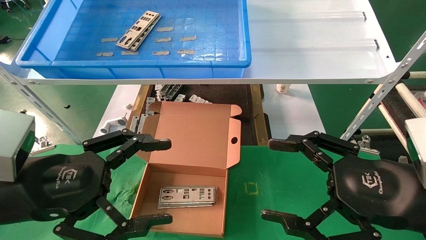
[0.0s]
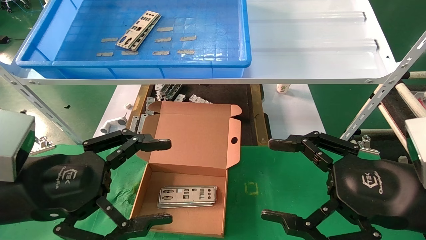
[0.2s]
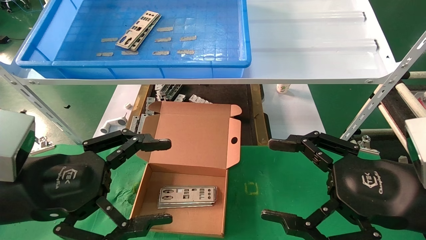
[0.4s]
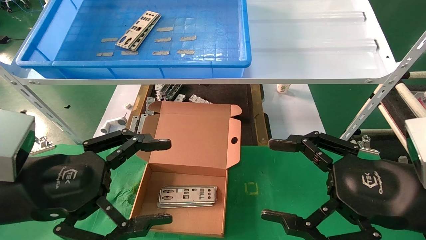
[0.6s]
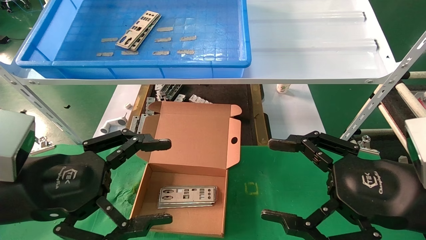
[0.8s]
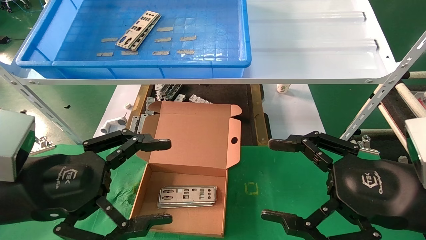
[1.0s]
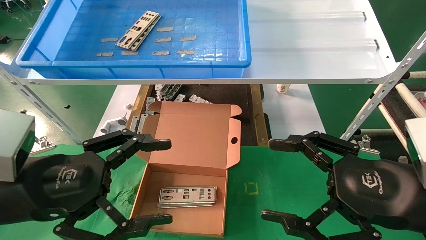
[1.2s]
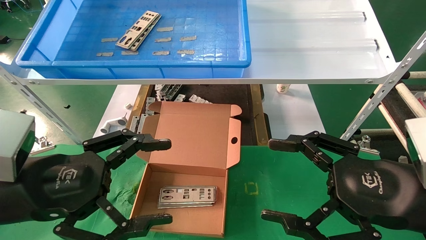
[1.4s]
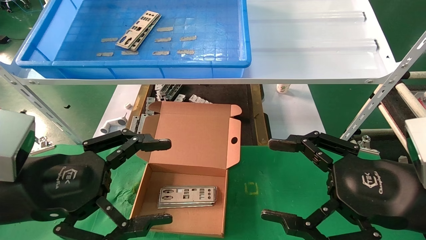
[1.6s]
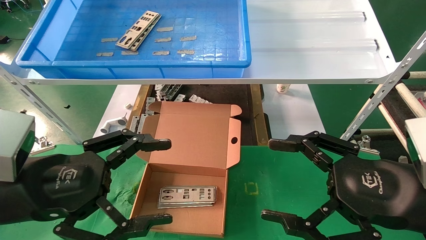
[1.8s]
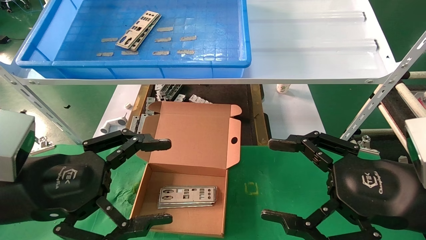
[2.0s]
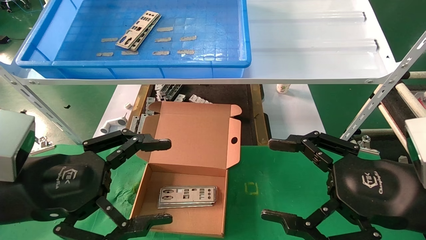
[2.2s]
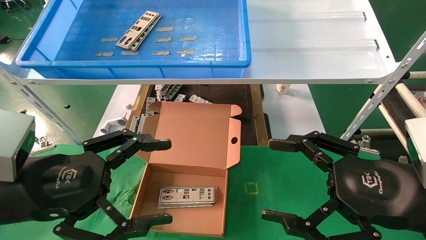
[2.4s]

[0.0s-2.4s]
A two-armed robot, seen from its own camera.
Task of the whole recording: pick up the parts on the tray and put them in the cardboard box.
0.0s to 2.4s: The two grippers keep their place.

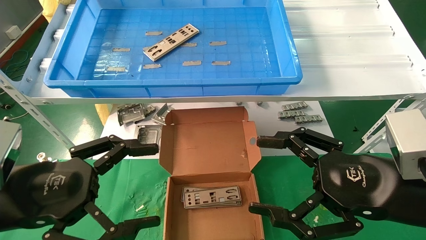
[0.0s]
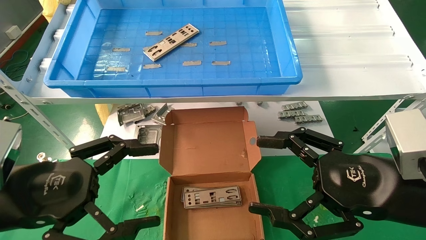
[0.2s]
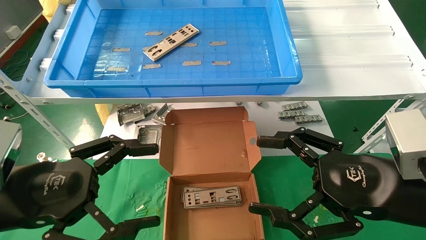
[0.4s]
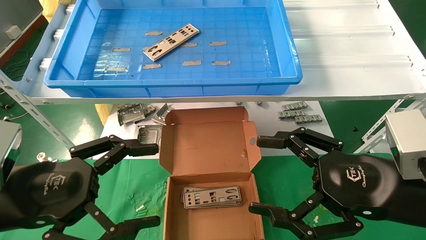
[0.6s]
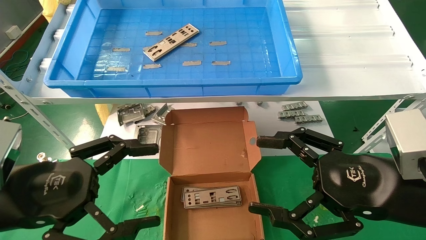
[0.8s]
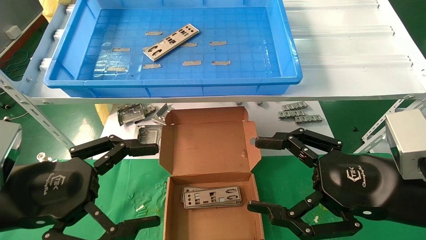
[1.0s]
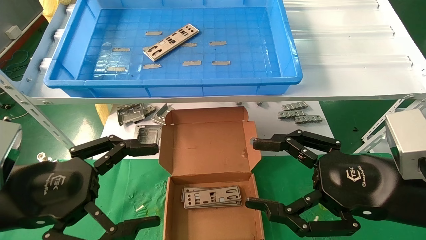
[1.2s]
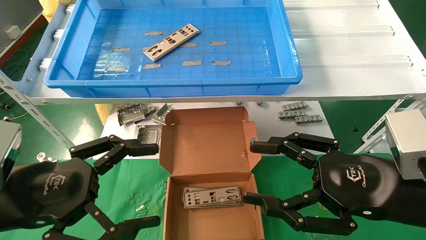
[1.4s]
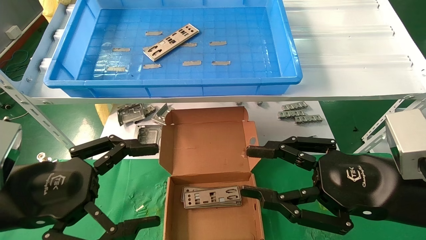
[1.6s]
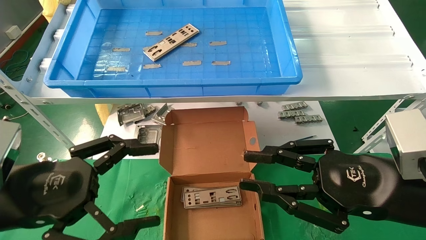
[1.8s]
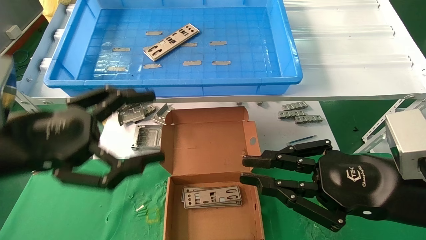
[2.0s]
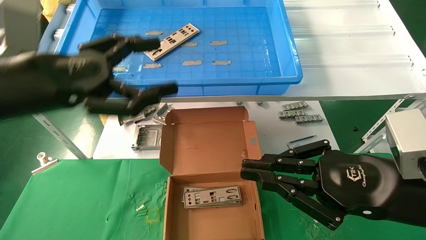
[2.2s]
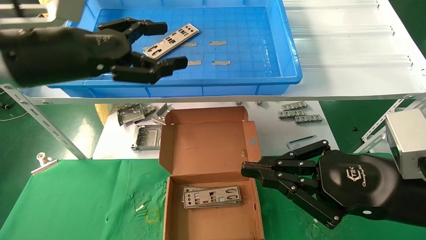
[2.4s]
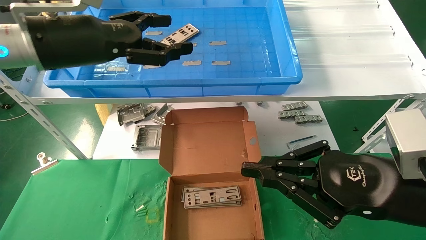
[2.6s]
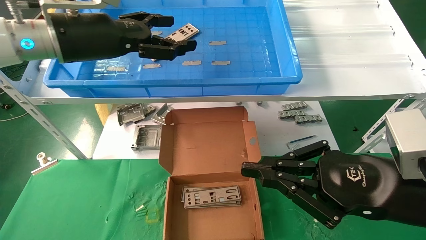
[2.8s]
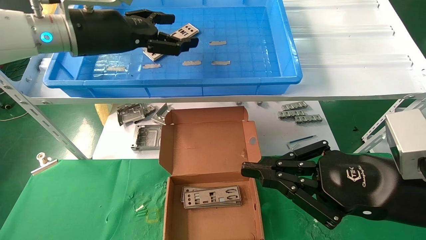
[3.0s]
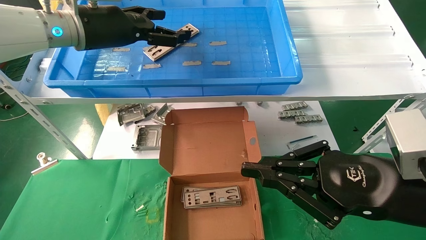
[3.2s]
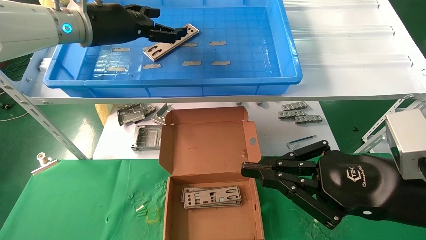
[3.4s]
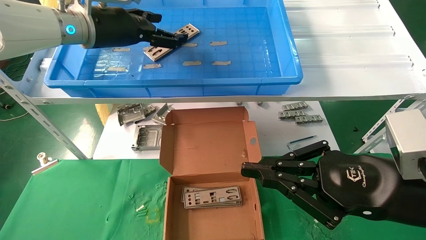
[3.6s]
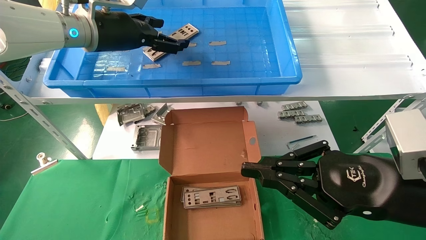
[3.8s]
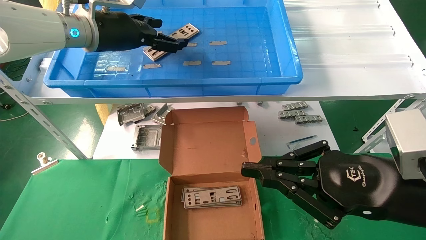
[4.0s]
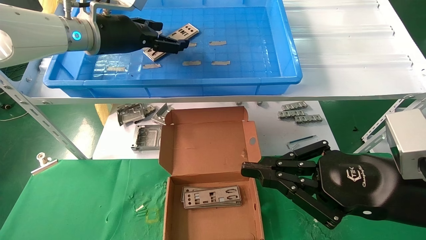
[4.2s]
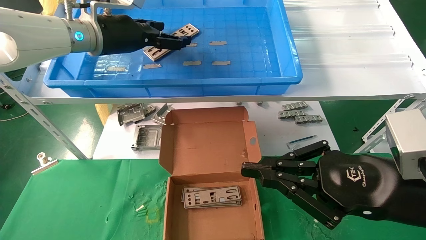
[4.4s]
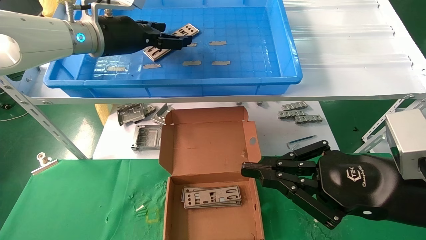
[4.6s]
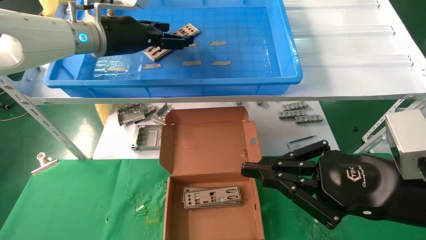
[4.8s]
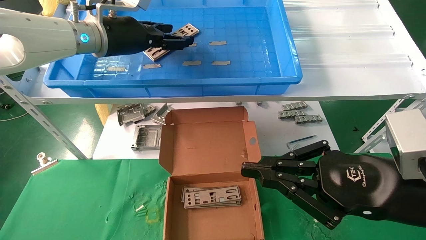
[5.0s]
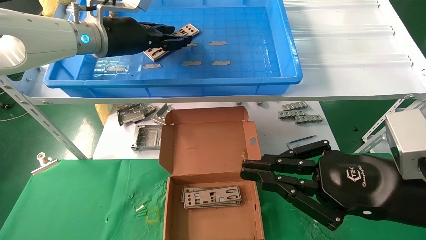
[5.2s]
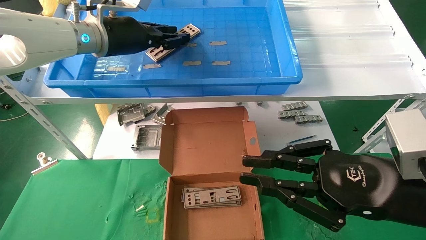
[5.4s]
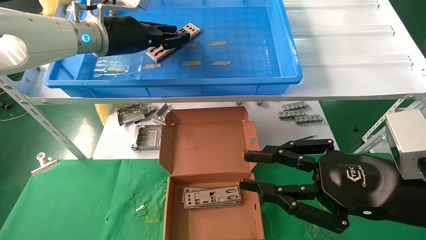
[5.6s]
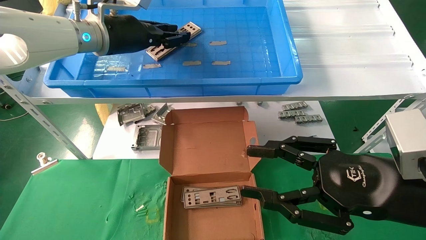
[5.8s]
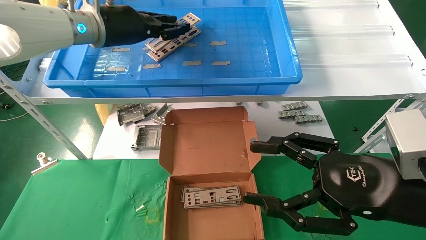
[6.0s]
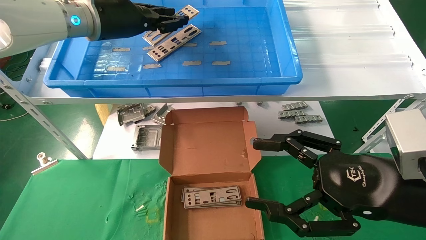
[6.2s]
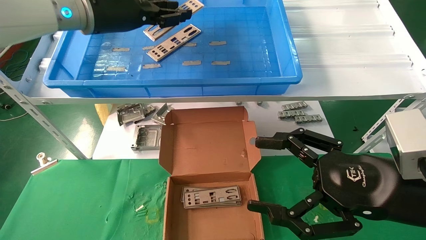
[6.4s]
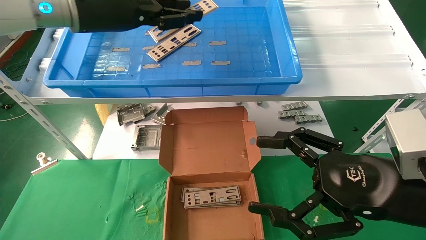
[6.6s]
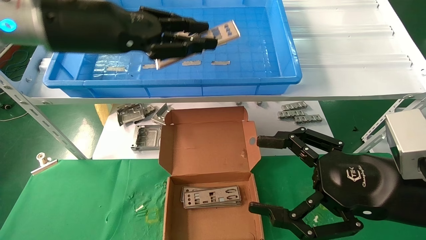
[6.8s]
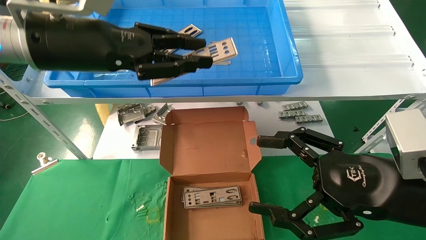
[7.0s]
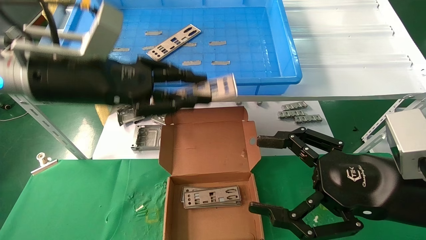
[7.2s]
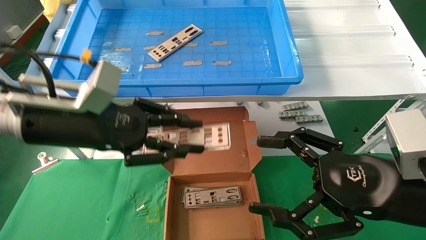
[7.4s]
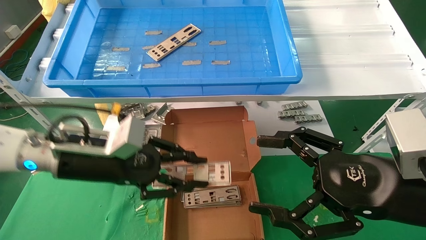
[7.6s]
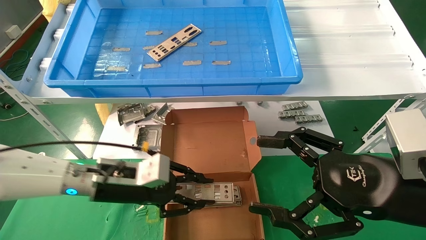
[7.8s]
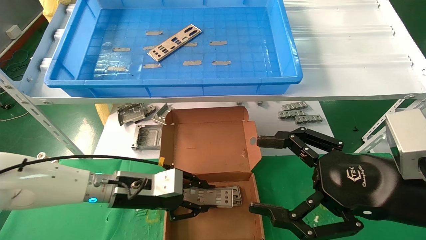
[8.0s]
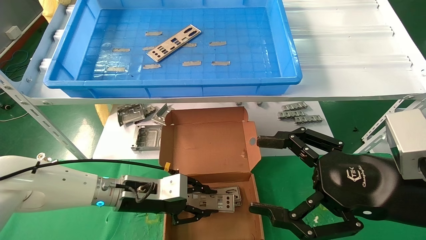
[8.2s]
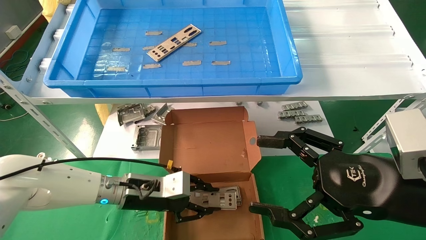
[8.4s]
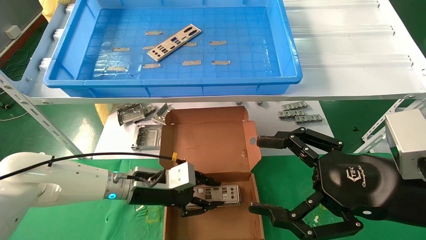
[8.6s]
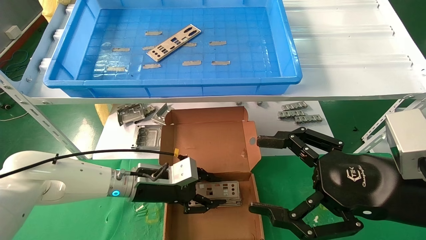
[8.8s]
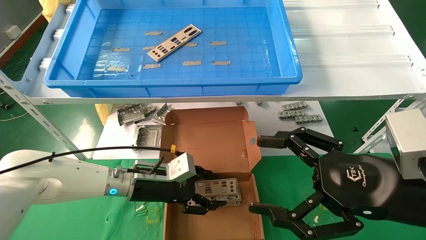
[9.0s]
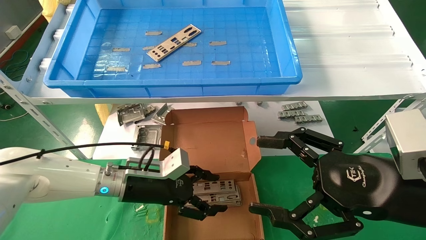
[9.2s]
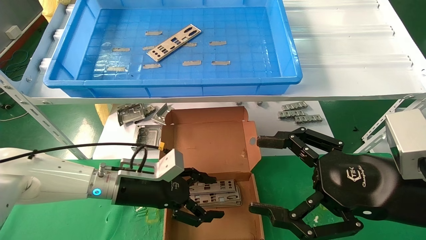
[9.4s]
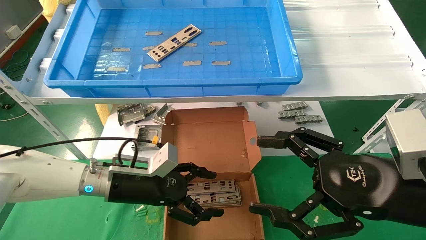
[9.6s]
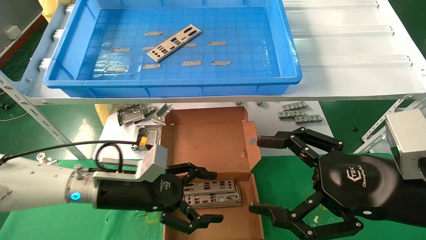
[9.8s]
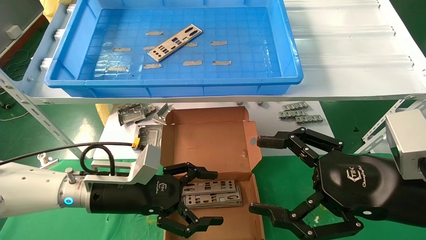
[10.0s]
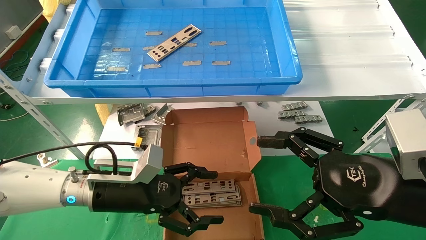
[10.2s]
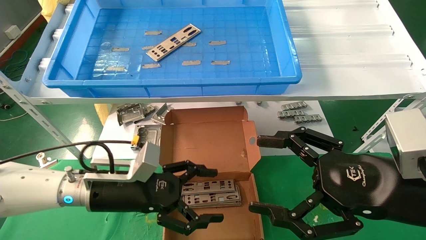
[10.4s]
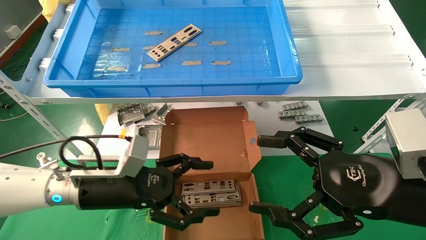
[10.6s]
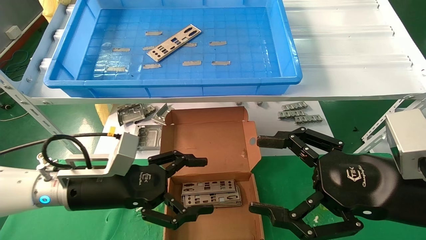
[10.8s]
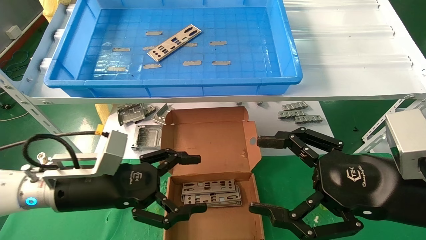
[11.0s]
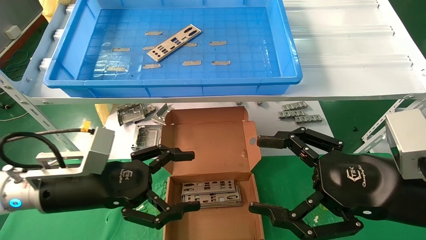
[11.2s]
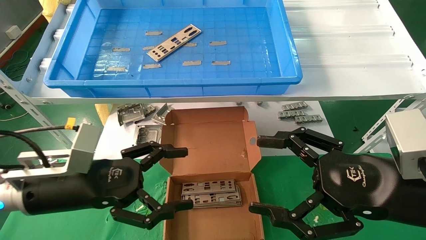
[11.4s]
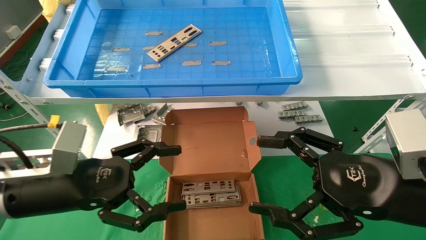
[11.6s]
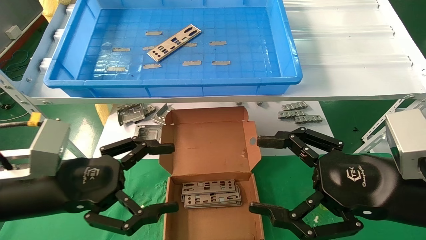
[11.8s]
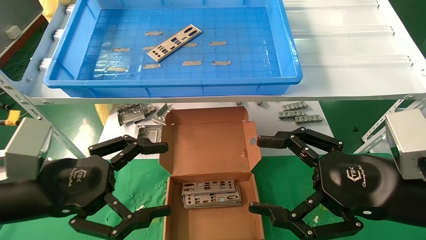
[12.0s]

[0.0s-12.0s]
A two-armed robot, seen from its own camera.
Task of the whole recording: pick up the parts on the tray and put them in the cardboard box.
Step, 2.2s to 5.6s: Pick up the IO bracket from the container box.
Step, 5.8s to 9.0s: Place the IO bracket into the ingredient slot.
0.0s to 1.6s: The right gripper closes.
1.6s to 3.0s: The left gripper is displaced forward and upward by about 25 cm. Meanwhile the right gripper closes up.
3.0s to 4.4s: The grippers make only small movements.
4.4s to 6.0s: The left gripper closes its fingers. Meanwhile the right gripper opens.
6.0s to 7.6s: The right gripper opens; the left gripper is displaced downward and backward by about 25 cm.
7.6s to 9.0s: The left gripper travels downward, forward and to the right by about 15 cm.
9.0s to 10.4s: The left gripper shifts some 5 cm backward, and opens its fingers.
10.4s to 12.0s: The left gripper shifts some 15 cm backward, to the left and upward.

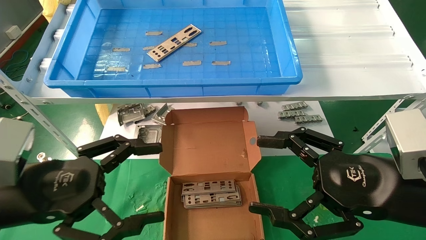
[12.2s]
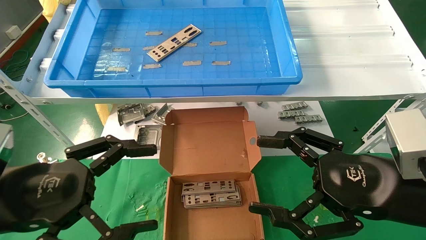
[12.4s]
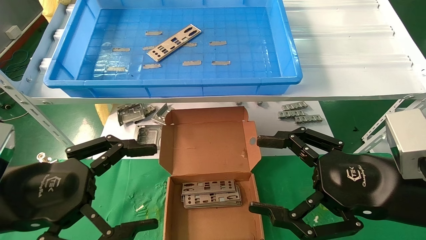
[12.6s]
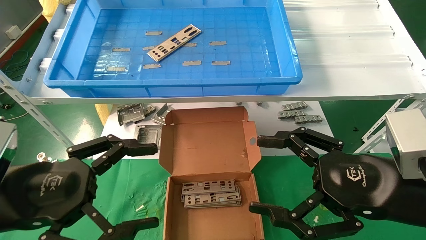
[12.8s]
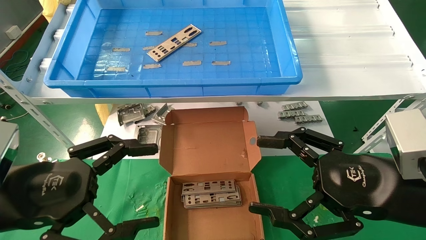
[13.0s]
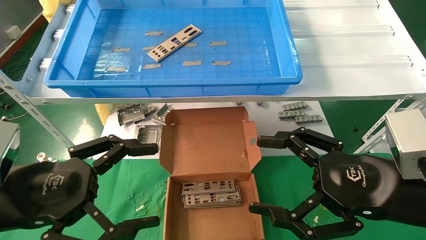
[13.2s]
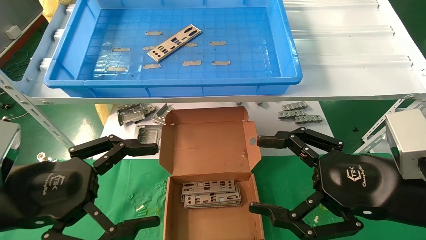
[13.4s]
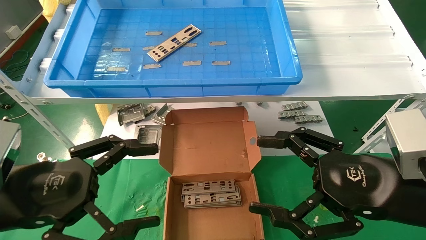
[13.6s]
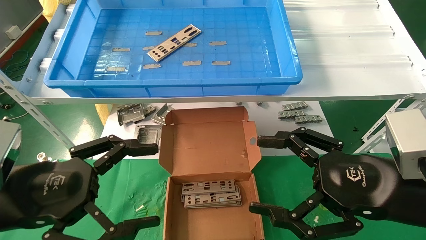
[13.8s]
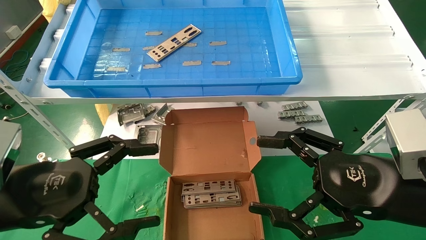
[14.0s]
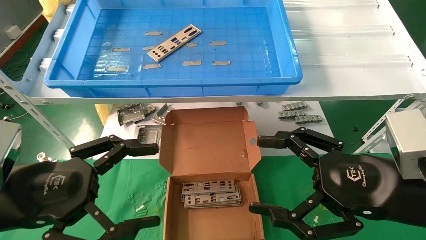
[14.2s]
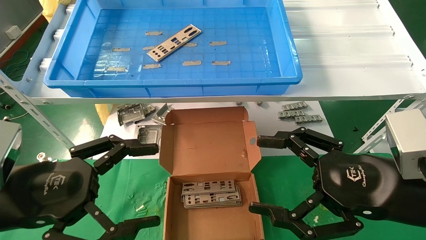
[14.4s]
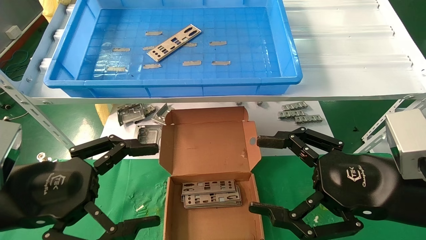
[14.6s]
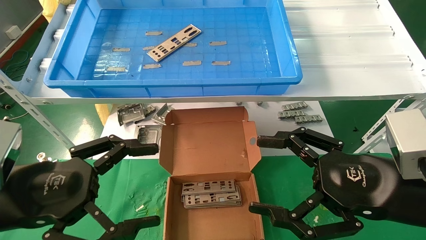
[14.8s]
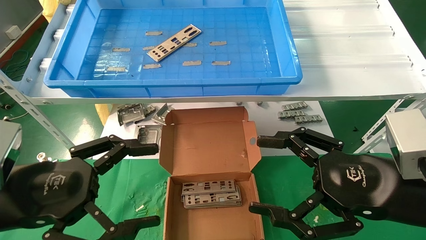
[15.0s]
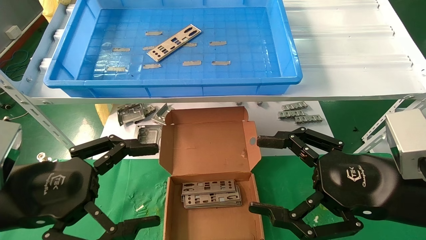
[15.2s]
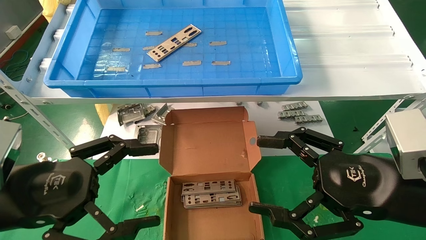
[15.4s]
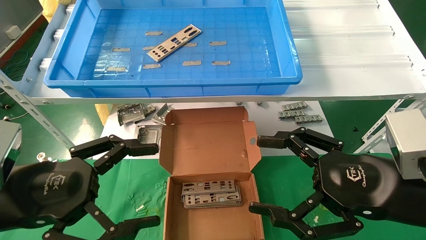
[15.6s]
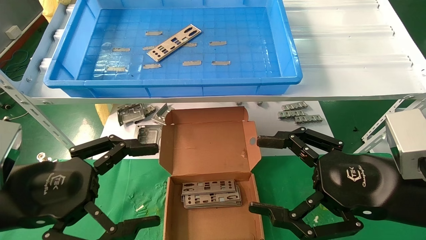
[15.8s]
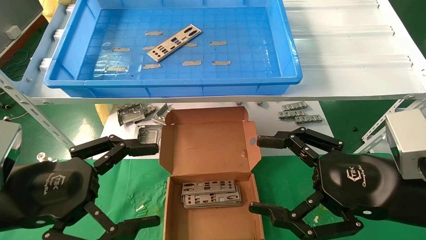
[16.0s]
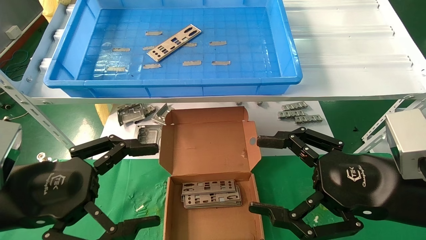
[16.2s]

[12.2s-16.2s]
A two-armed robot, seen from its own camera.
Task of the whole recording: pick up the parts on the tray and put them in the cardboard box.
12.2s to 13.6s: The grippers stay close to where they were, moving slightly.
13.6s to 16.2s: The two grippers keep their place.
